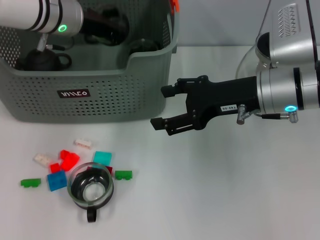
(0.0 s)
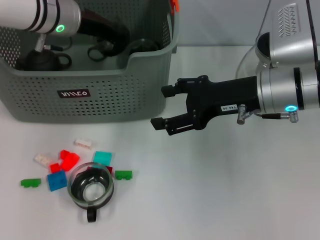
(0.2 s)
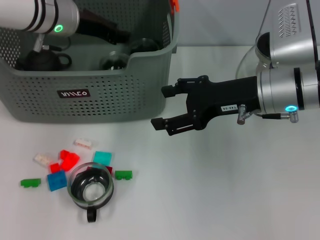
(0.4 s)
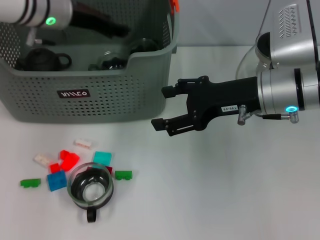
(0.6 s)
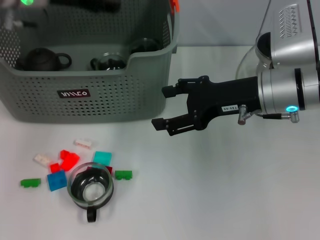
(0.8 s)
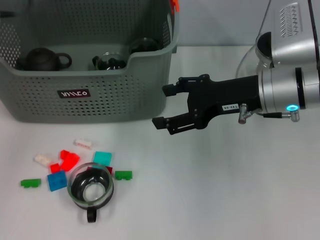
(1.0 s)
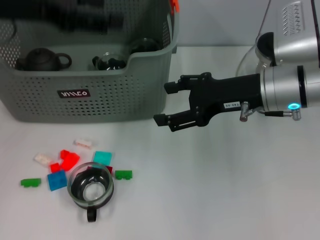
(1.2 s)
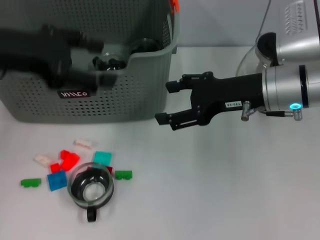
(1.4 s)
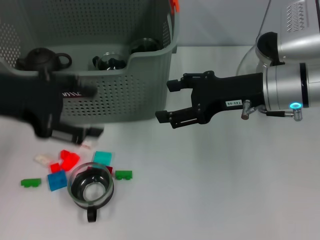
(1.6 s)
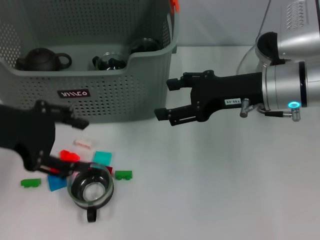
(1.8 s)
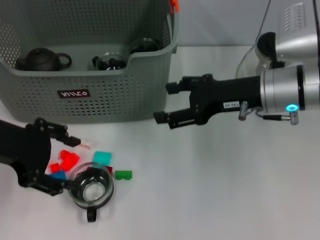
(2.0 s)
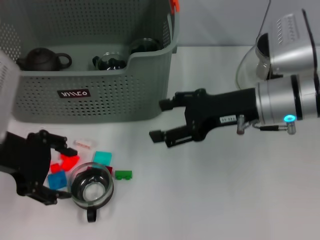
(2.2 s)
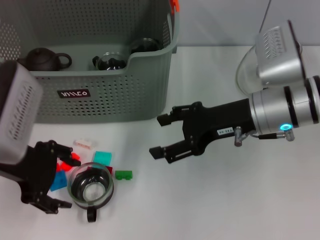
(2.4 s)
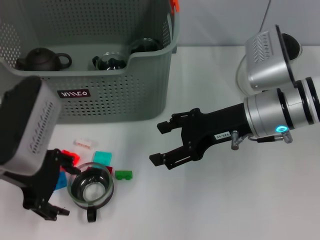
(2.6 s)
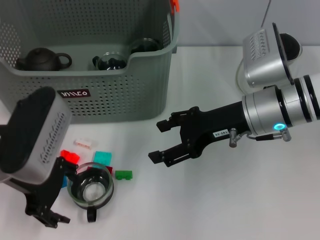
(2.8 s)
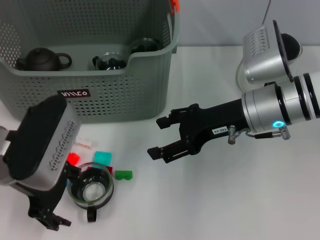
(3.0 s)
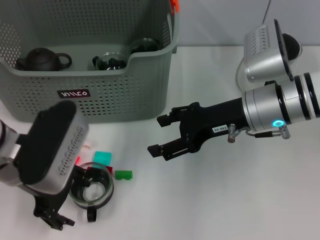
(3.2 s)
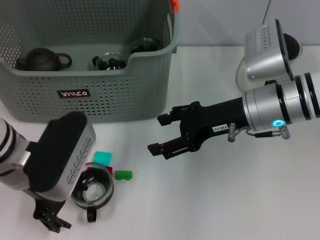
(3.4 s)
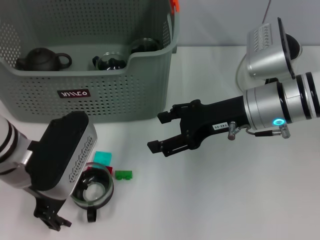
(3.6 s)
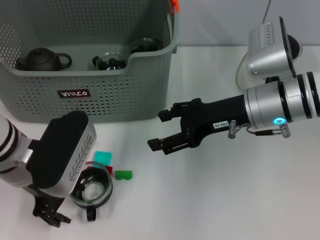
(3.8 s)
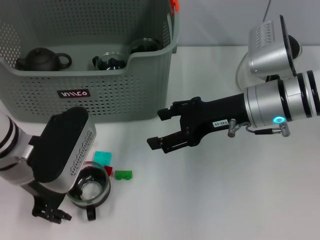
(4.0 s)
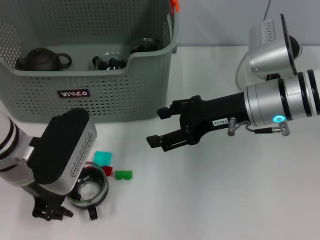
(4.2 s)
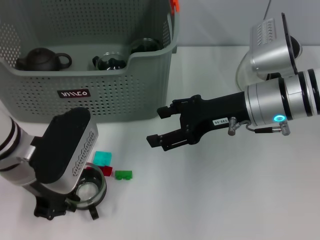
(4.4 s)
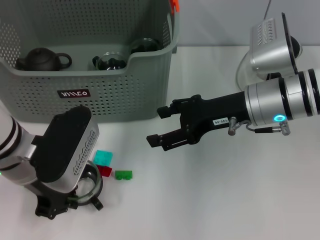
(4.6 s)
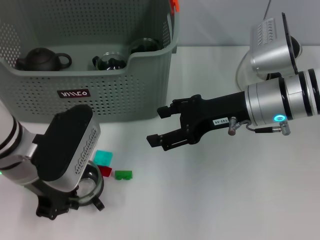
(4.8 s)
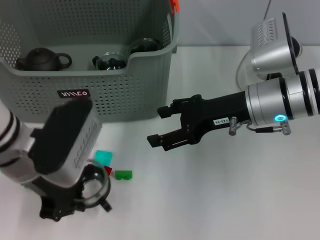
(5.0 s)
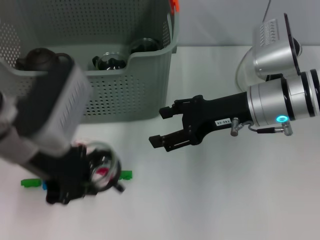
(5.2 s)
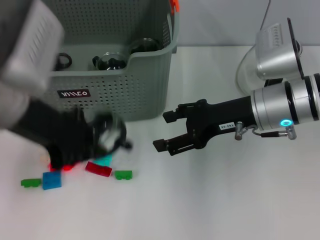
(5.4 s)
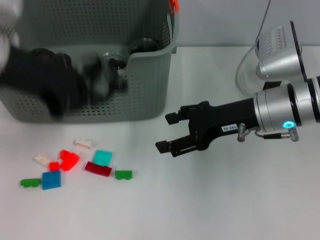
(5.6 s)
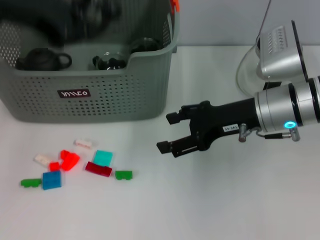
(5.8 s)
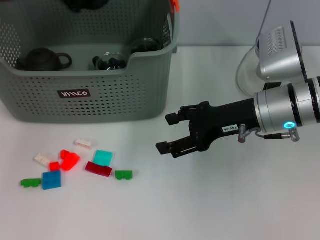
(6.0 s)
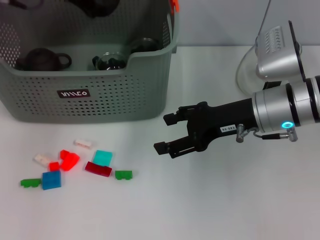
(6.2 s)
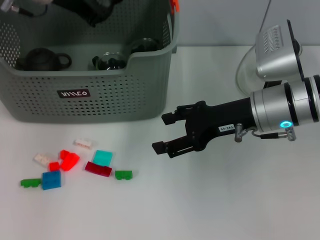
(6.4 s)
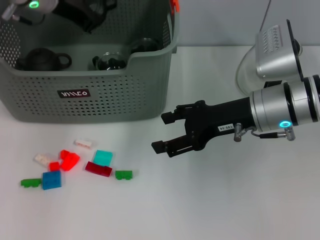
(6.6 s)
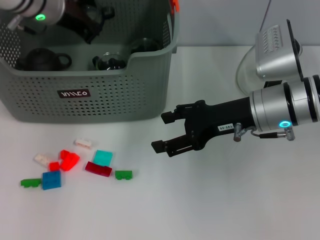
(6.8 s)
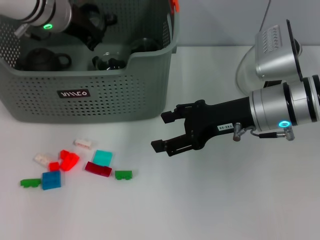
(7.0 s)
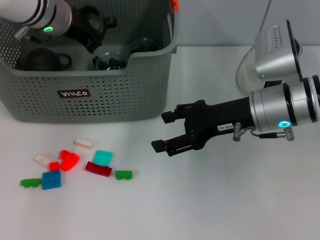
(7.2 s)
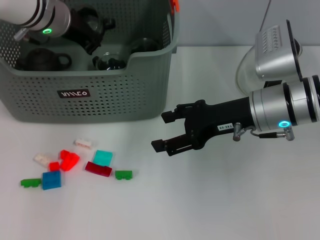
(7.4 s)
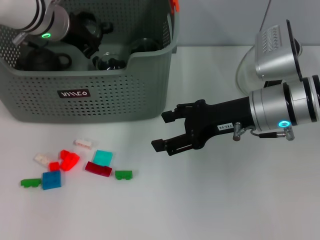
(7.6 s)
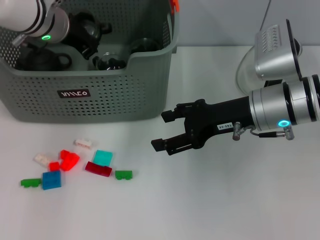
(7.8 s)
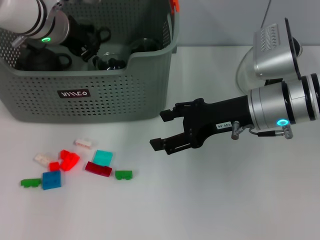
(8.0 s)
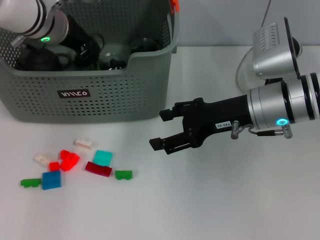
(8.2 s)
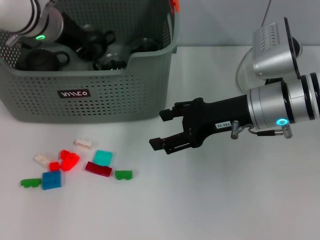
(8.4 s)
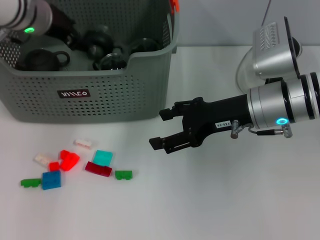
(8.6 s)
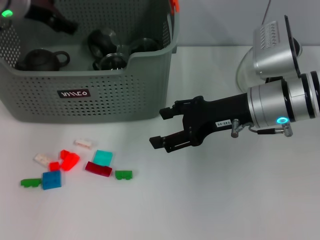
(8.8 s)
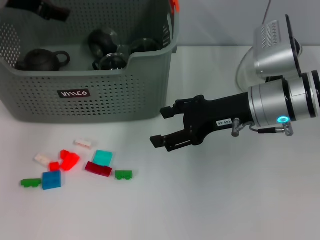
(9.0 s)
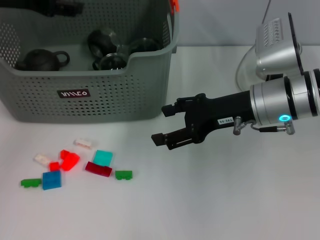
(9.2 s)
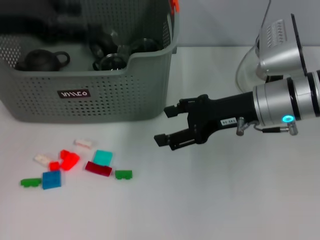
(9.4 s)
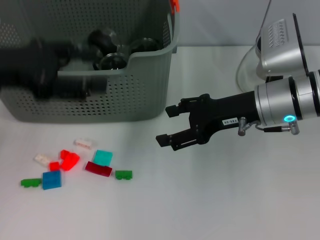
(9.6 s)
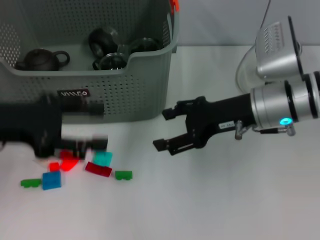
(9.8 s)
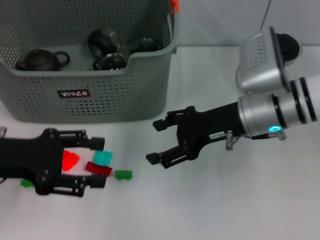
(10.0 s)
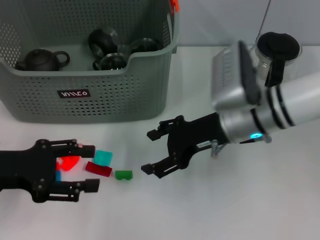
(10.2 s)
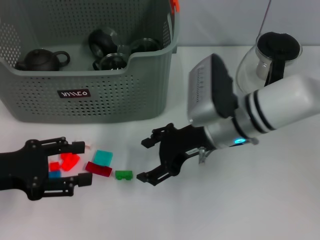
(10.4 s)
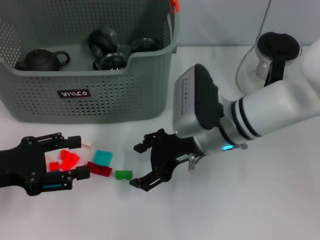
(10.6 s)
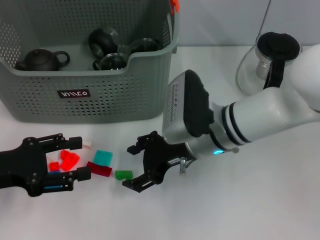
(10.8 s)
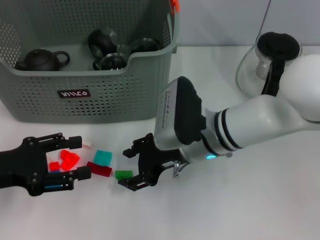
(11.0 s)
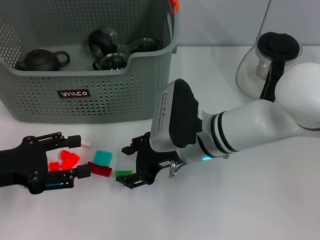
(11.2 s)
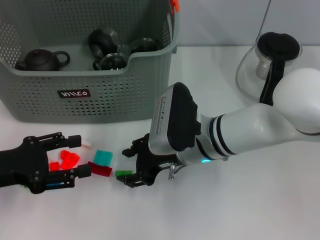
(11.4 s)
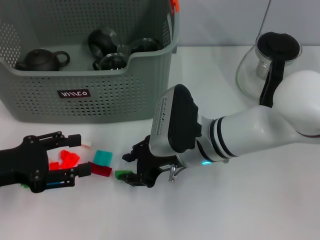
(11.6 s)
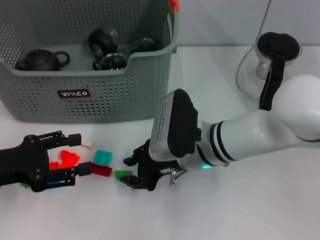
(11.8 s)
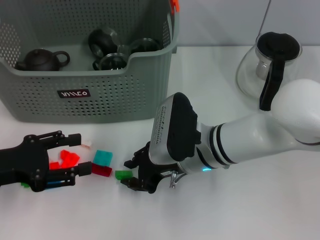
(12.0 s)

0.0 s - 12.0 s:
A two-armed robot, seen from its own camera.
Task of the whole recording: pick up the teacup on the table and place it into the storage bin, pick up the block on the table and place it into the storage bin.
Step, 0.8 s - 4.6 s: Grasp the cup with left gripper.
Step, 5.0 s - 8.8 s: Place the cup in the storage box with left gripper.
0.0 s - 1.6 s: The left gripper travels backward and to the left by roughly 20 cm, and opens its fingers.
1.6 s - 3.0 s: The left gripper heads downward and to the right, covering approximately 10 cm.
3.0 s - 4.4 s: The left gripper closes its fingers.
4.4 s - 6.0 s: The left gripper travels upward and forward by roughly 20 cm.
6.0 s - 7.6 s: The left gripper travels downward and forward by some 15 cm.
7.6 s - 9.0 s: The left gripper moves to the left and upward, some 10 cm, and opens its fingers.
9.0 s - 10.4 s: The right gripper goes about 5 cm to the left; the left gripper goes approximately 25 cm backward and downward.
10.4 s - 12.0 s: The right gripper moves approximately 5 cm, and closes its fingers.

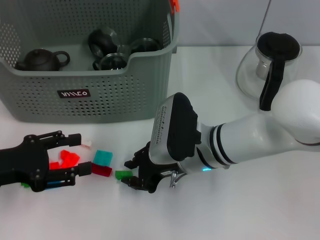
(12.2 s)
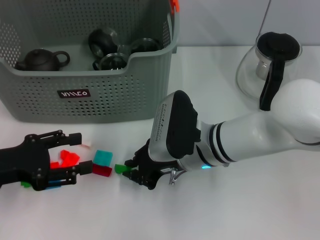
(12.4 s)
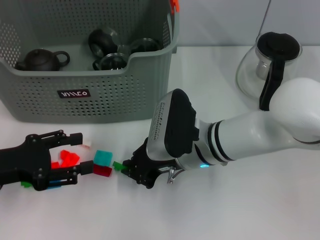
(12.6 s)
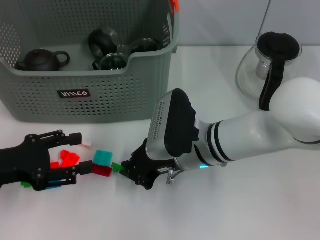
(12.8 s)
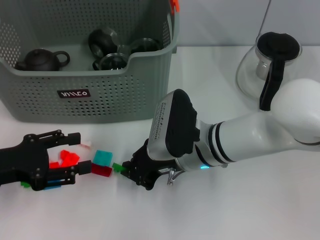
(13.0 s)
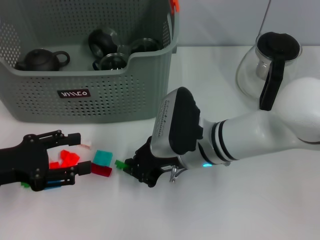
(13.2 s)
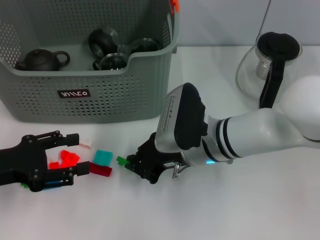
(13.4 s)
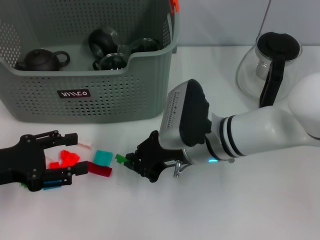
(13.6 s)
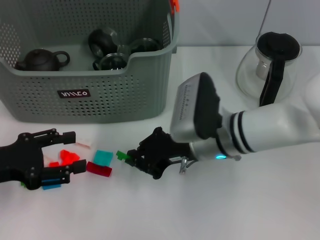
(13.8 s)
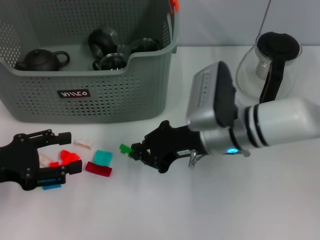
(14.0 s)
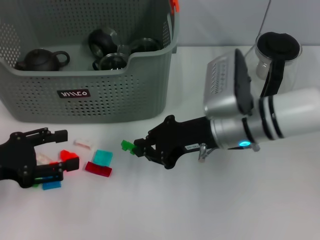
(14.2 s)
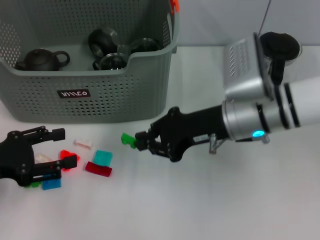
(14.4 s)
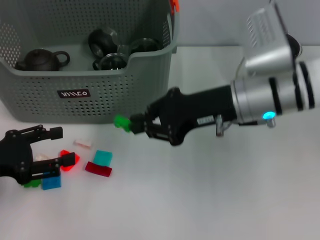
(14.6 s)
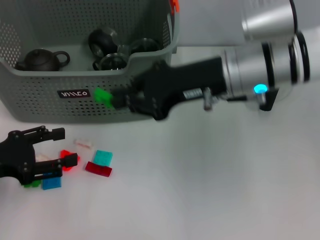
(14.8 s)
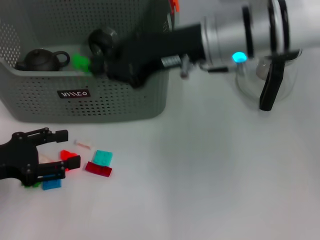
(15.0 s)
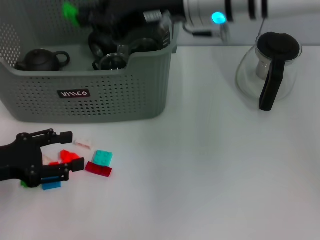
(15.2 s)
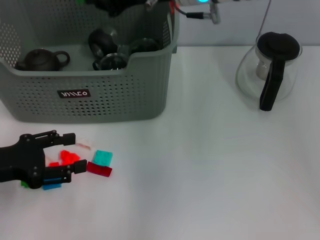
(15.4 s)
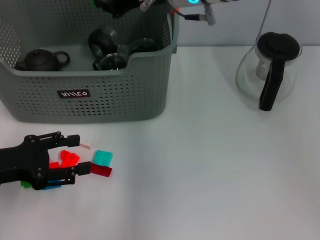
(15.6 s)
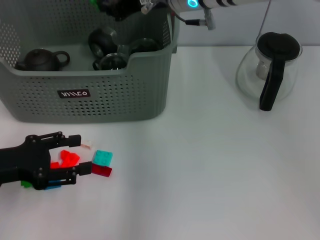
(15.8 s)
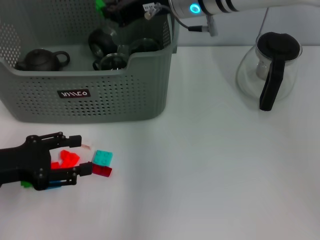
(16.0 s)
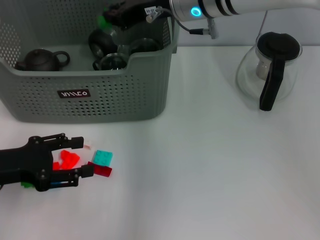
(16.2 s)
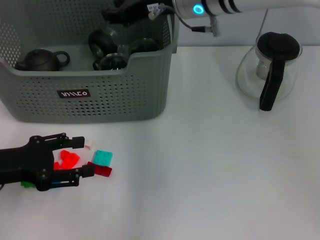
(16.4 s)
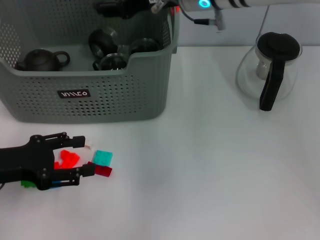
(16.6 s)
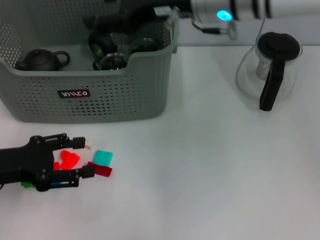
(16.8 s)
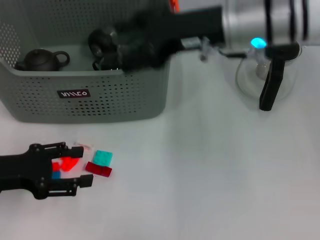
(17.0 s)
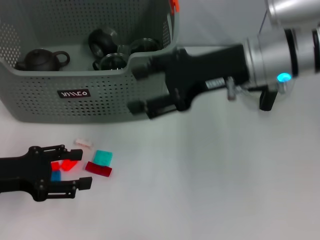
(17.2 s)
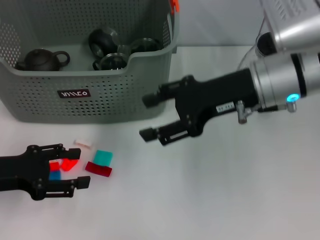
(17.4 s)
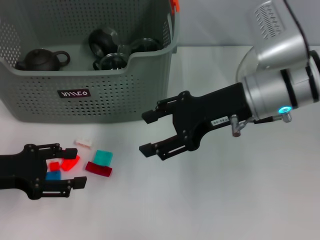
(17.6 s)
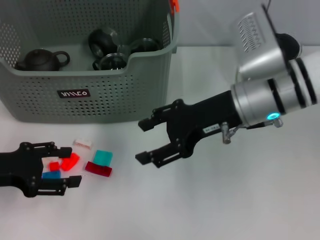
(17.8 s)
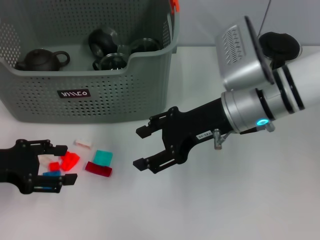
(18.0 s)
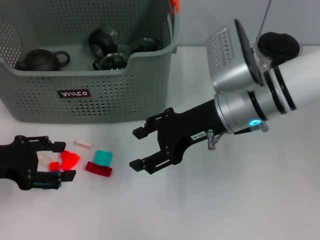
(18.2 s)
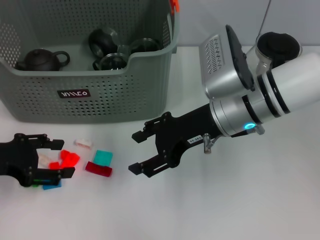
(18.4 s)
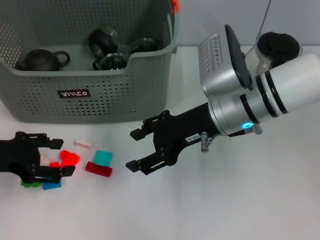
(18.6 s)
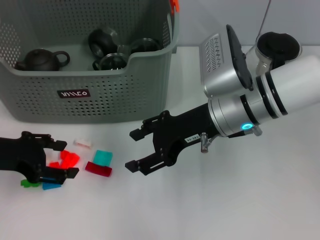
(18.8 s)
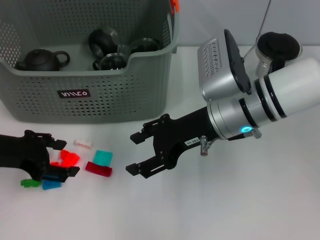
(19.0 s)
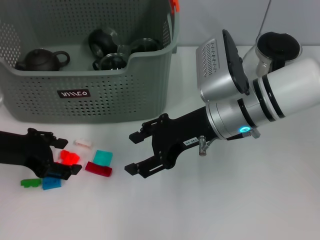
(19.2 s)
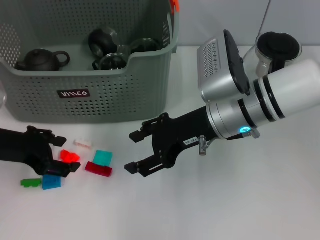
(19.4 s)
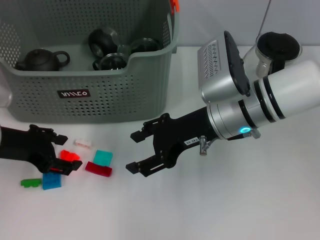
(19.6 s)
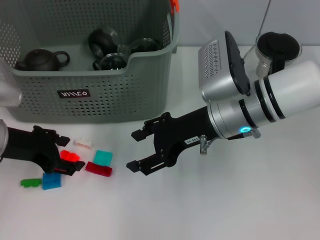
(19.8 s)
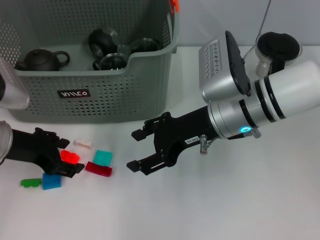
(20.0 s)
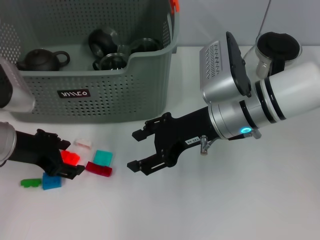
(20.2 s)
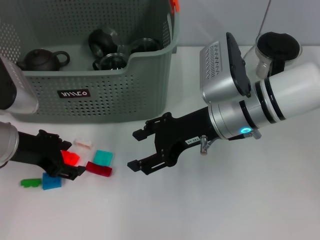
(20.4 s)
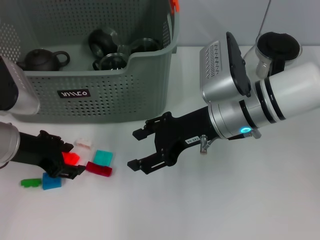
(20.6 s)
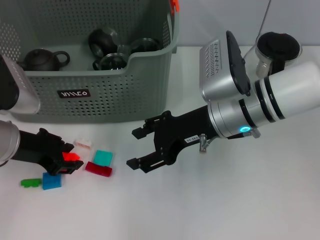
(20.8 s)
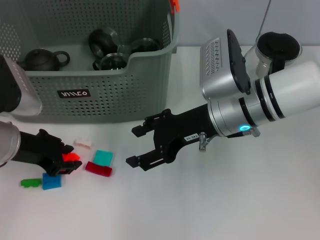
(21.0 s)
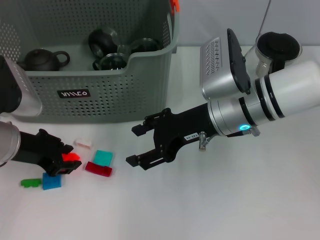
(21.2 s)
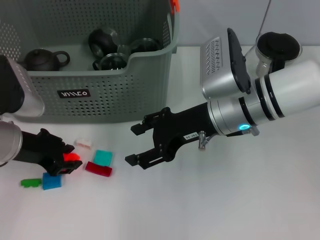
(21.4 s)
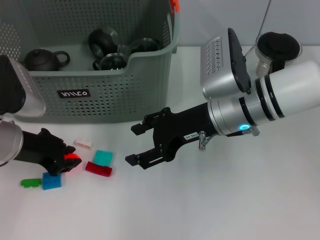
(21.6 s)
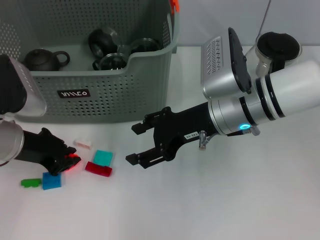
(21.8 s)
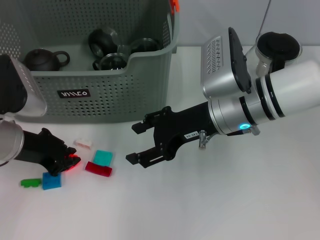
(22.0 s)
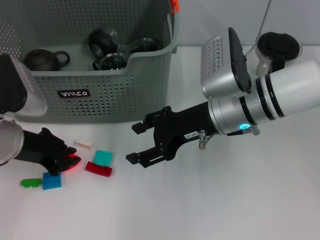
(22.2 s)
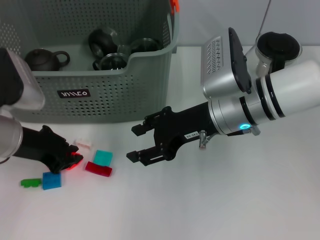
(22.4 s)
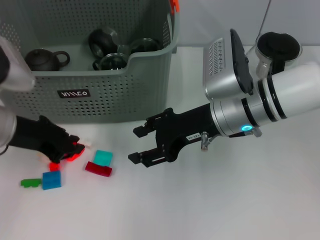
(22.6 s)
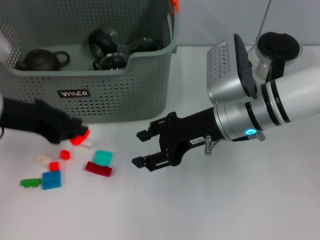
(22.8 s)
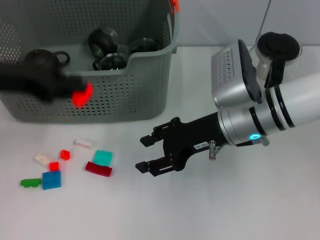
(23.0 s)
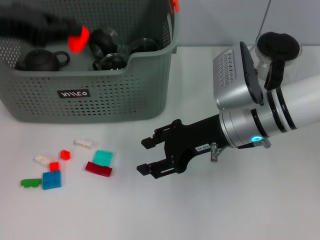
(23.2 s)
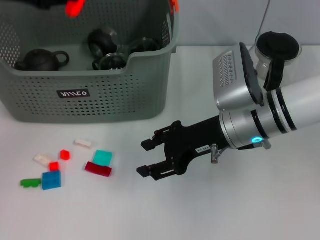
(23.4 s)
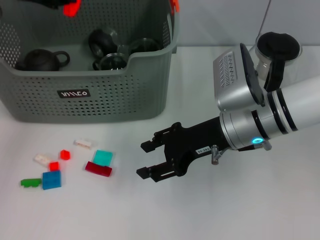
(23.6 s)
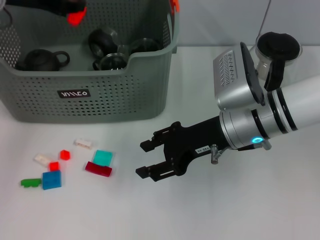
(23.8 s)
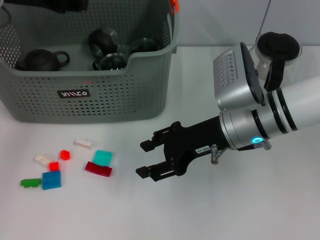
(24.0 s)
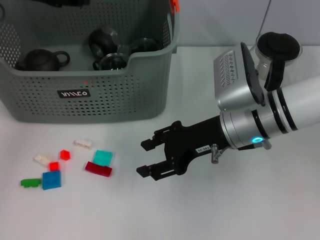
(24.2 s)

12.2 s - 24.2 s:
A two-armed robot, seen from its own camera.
Task of the whole recording: pick up the teacup on the table and place it into the storage bin, pick up the block on the table and place it into the storage bin.
Step, 12.8 s - 16.4 s: Place the green block in the storage box with right gripper.
Step, 16.6 s - 21.6 s: Grasp the orange block with left gripper.
Step, 21.8 s - 24.2 s: Place the orange block in the storage box with left gripper.
12.2 s - 13.8 s: There are only small adjustments of the grippers.
13.8 s - 15.2 s: The right gripper heads upward, covering roughly 15 cm.
16.6 s - 18.2 s: The right gripper moves downward, backward and to the right, some 15 cm, and opens its fingers.
18.2 s - 19.8 s: The left gripper heads to the right, covering some 5 cm.
19.8 s - 22.6 s: The grippers move only a little.
22.6 s - 24.2 s: The left gripper is displaced upward and forward by some 15 cm.
